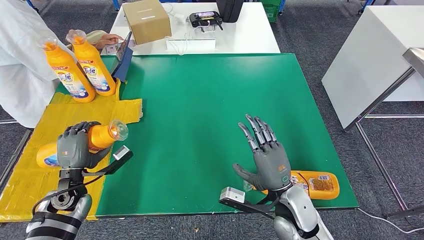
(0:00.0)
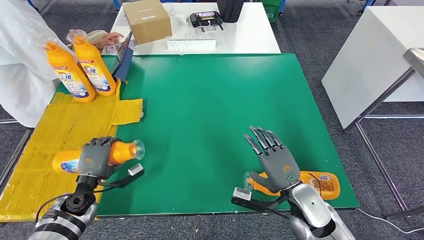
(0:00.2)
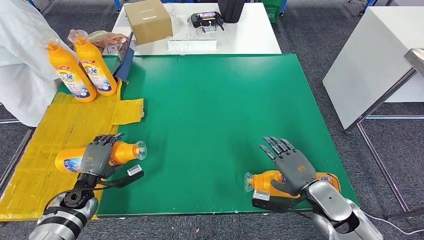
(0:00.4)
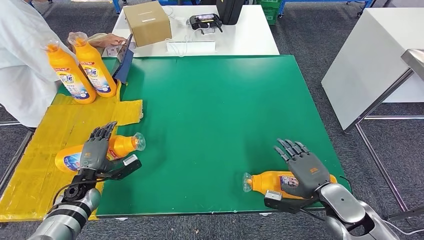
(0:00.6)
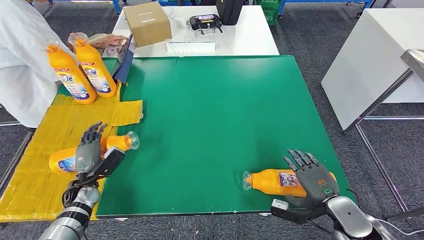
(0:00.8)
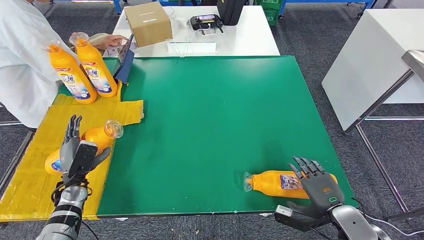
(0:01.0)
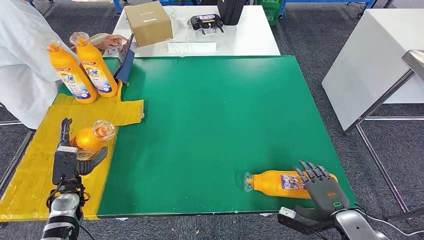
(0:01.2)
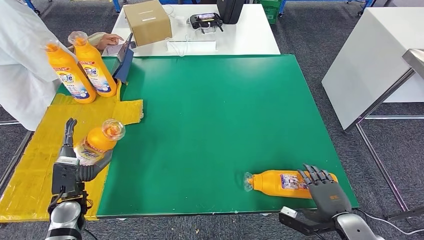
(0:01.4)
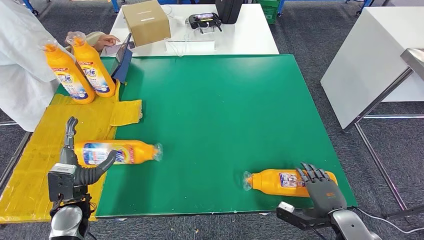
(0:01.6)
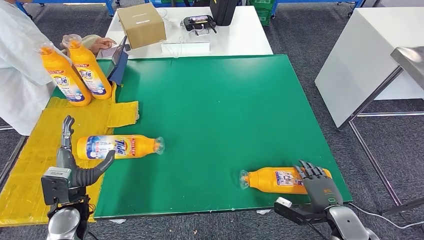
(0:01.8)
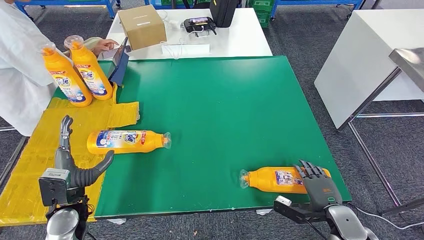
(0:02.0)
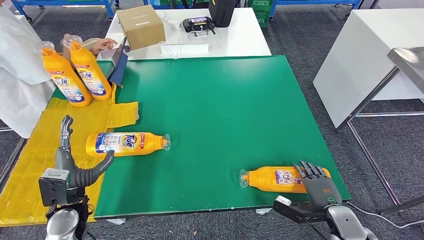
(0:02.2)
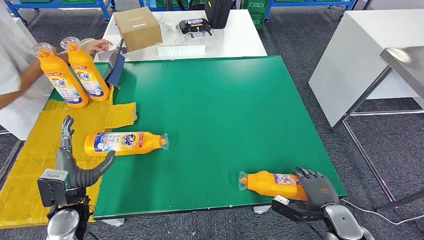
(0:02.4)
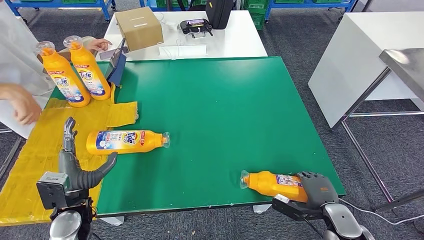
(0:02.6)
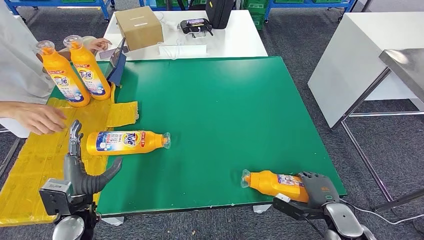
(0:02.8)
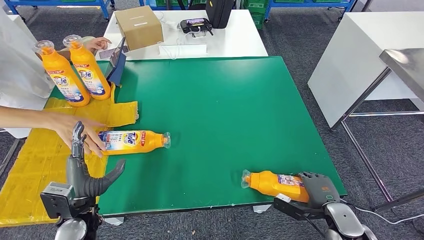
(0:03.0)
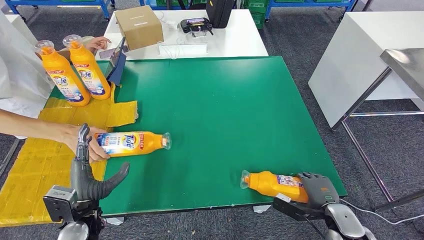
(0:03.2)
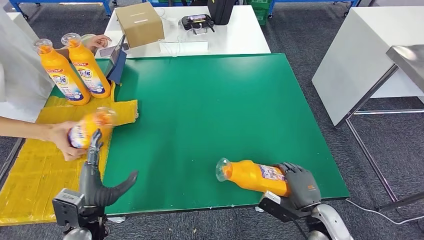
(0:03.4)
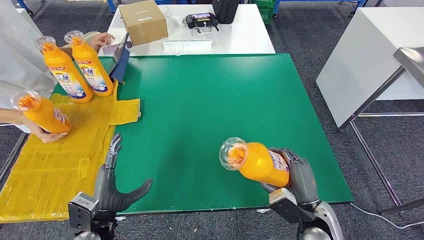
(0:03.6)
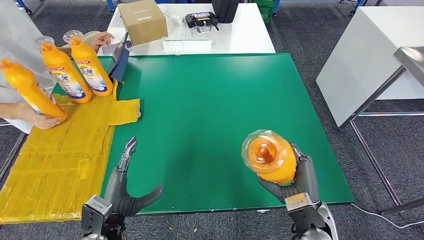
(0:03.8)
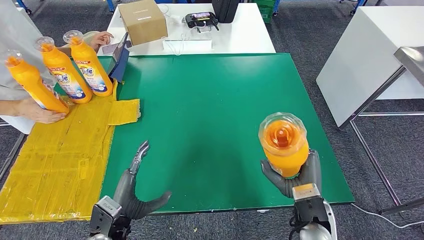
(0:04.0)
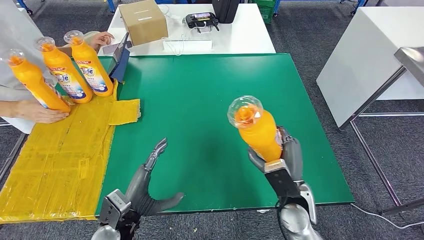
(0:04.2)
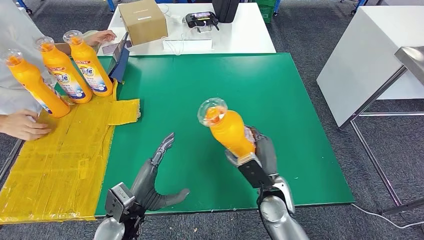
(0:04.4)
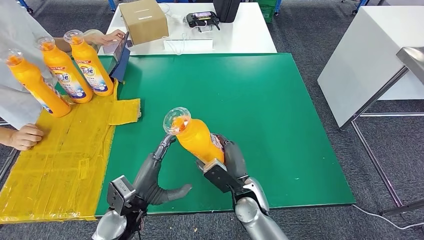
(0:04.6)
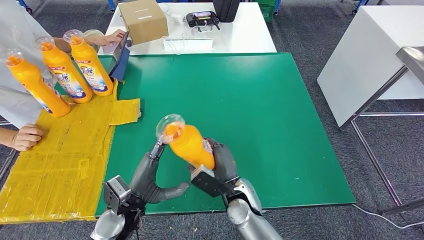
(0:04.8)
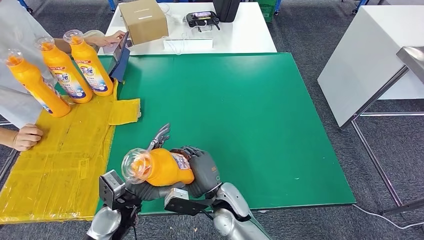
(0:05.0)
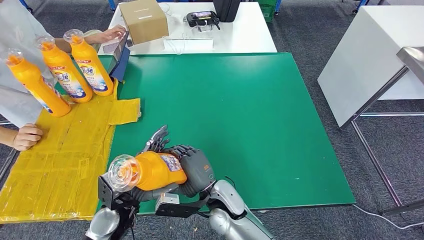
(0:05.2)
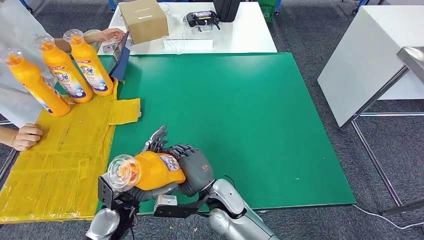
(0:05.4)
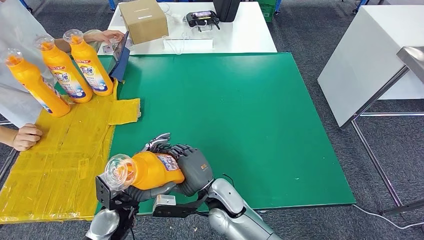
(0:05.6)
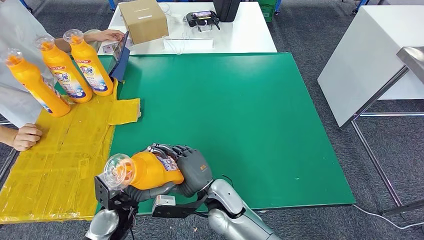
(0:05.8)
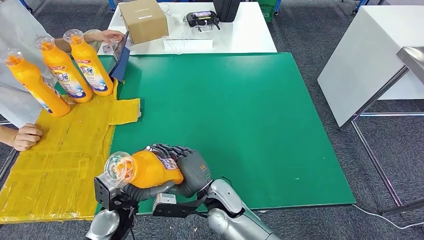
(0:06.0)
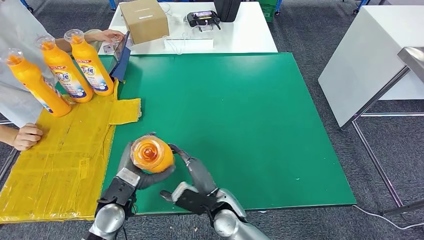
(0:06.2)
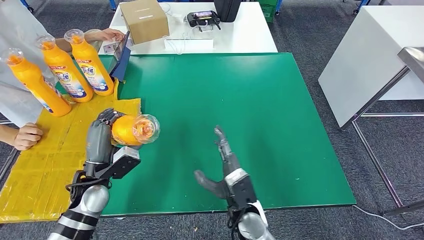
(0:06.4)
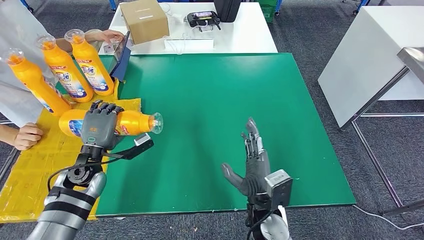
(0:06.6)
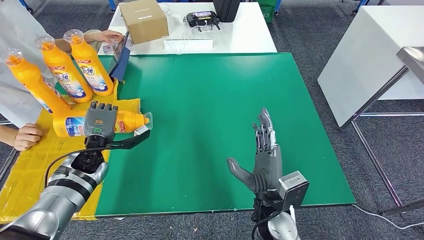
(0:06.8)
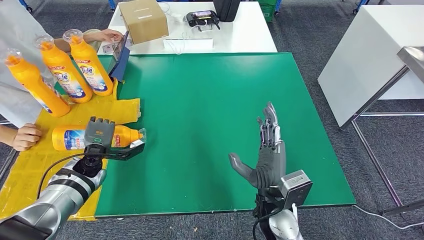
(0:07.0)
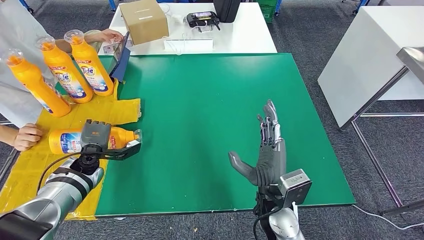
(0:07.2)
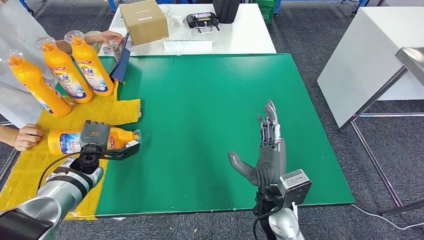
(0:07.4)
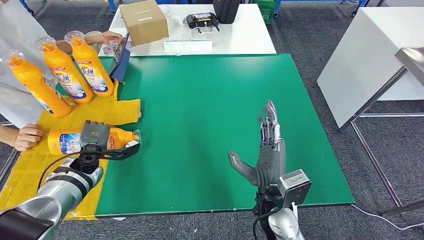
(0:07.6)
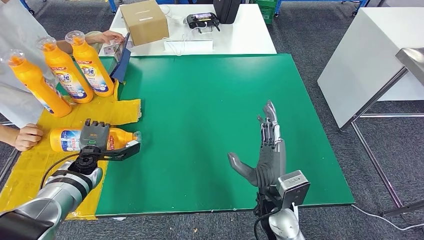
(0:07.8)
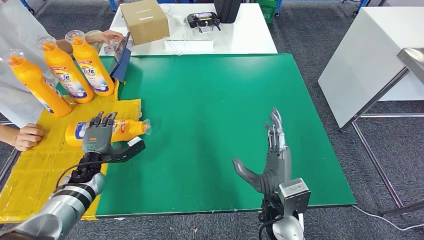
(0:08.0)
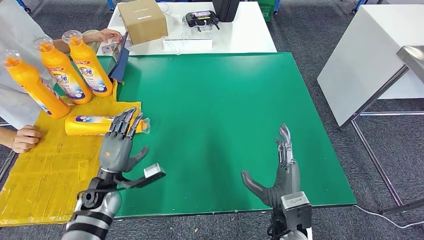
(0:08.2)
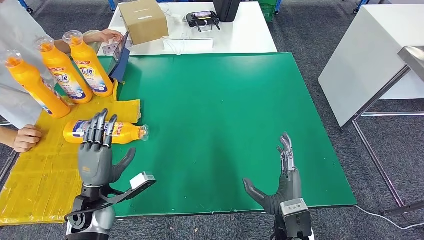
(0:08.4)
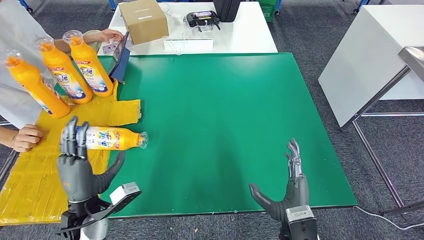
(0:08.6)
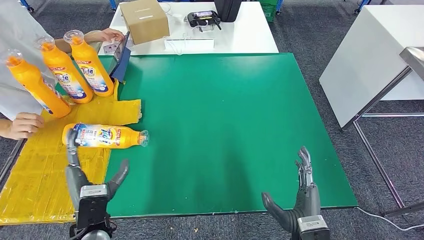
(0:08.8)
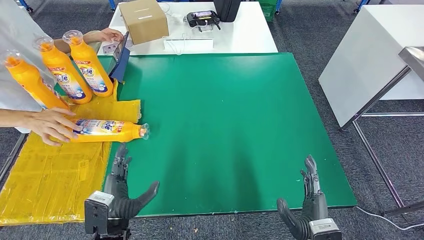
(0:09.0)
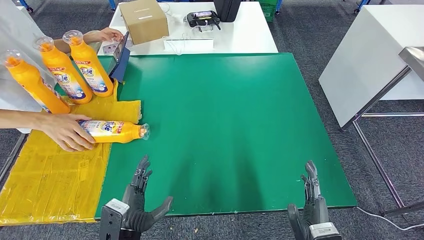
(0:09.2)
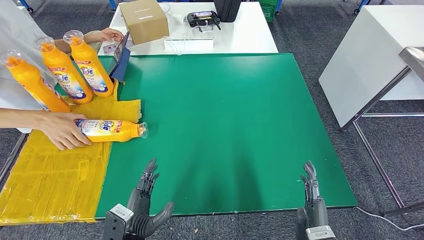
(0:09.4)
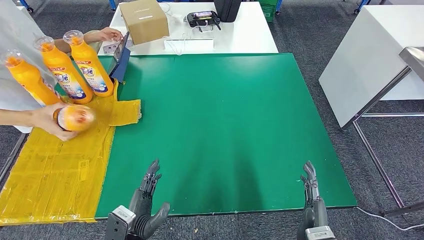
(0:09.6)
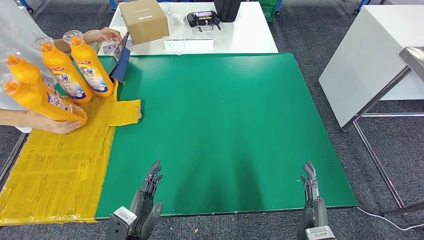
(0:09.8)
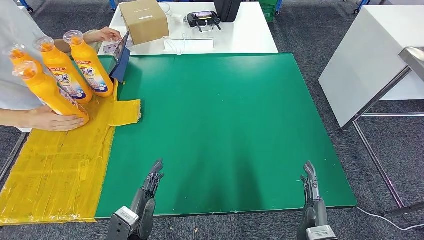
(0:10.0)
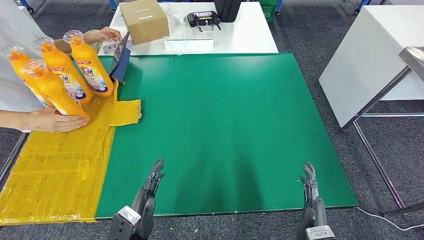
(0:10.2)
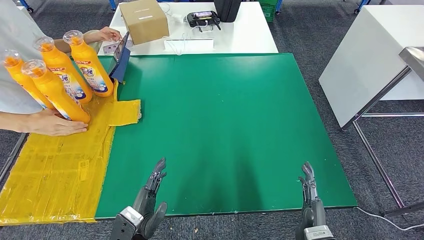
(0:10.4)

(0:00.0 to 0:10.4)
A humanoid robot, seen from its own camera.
Step, 0:00.0 - 0:01.8: Flip the fast-moving consumer goods bottle to the front side.
Step, 0:02.2 - 0:05.0: Pick up the fast-moving consumer goods bottle from the table.
Step, 0:05.2 - 0:10.4: Flip the fast-moving consumer goods bottle to the front side.
0:00.0 - 0:01.4: The left hand goes downward and returns, approximately 10 cm each way. The right hand heads to the right and downward, covering some 15 cm.
0:04.4 - 0:06.0: The right hand goes some 15 cm to the left.
0:09.0 - 0:10.4: There are only small adjustments of the hands.

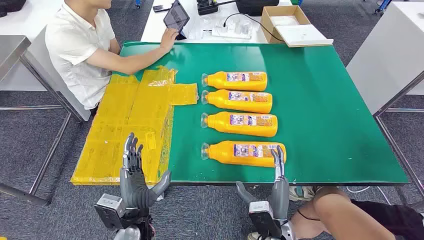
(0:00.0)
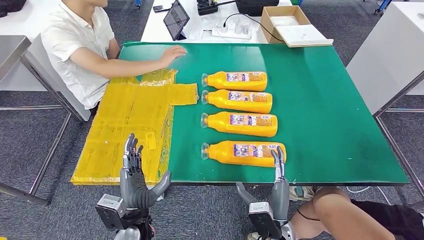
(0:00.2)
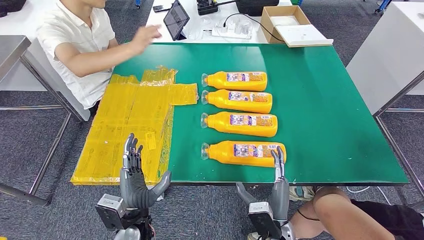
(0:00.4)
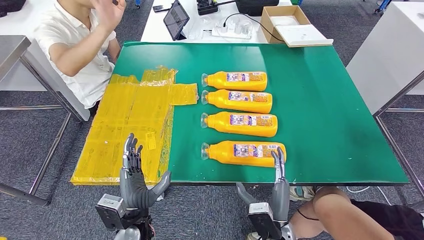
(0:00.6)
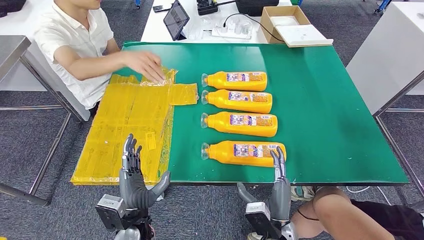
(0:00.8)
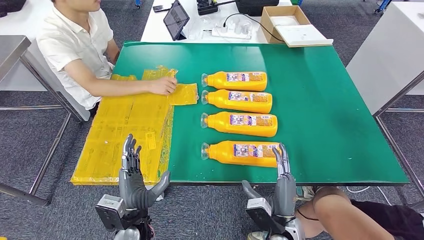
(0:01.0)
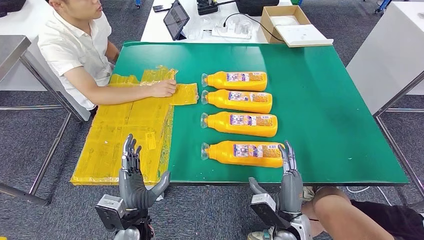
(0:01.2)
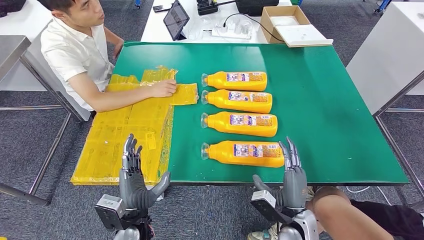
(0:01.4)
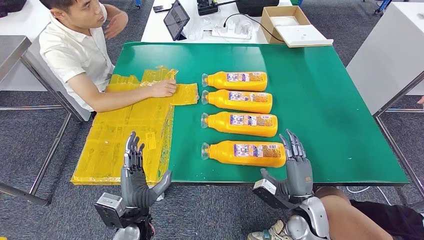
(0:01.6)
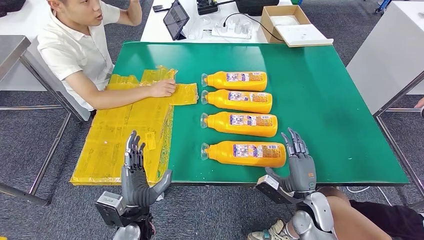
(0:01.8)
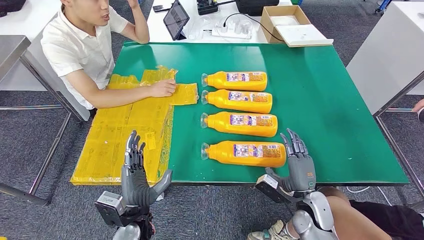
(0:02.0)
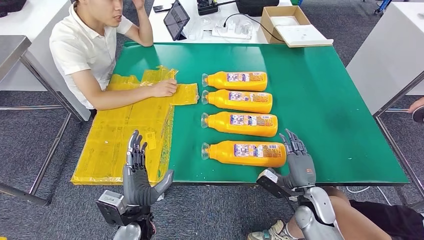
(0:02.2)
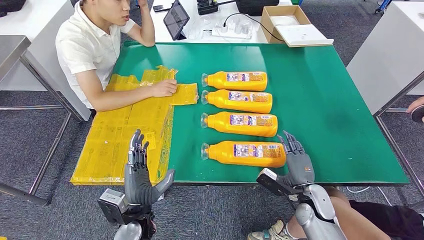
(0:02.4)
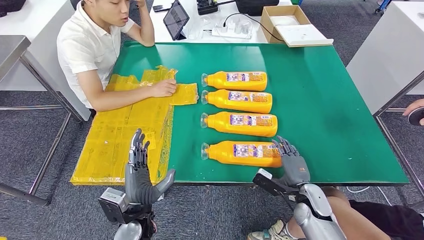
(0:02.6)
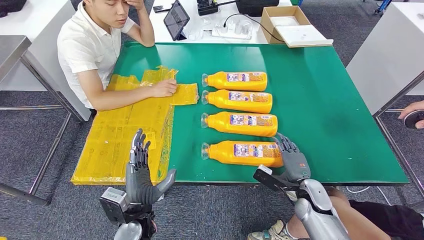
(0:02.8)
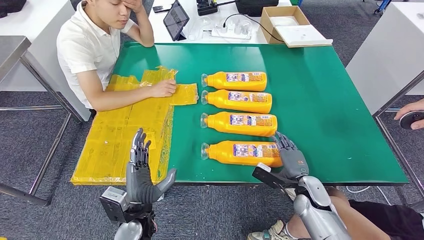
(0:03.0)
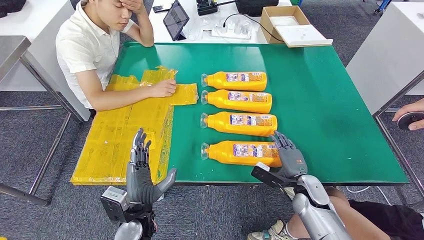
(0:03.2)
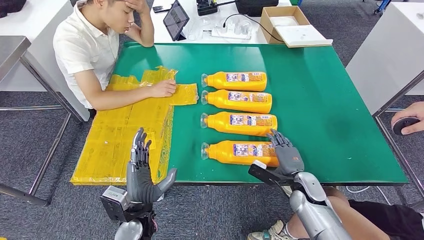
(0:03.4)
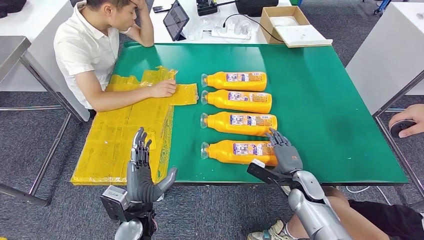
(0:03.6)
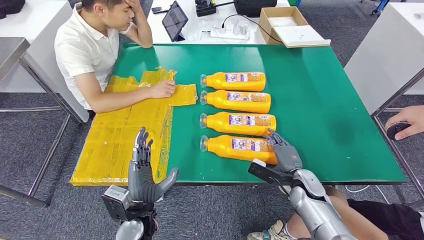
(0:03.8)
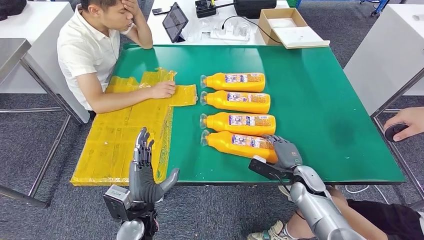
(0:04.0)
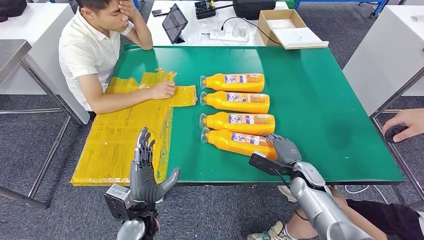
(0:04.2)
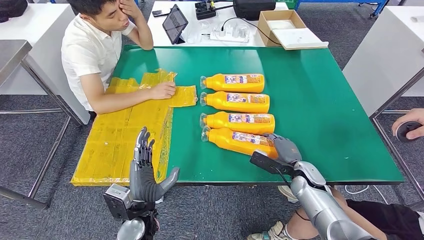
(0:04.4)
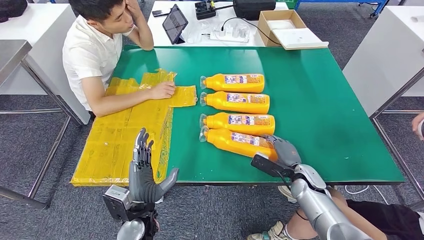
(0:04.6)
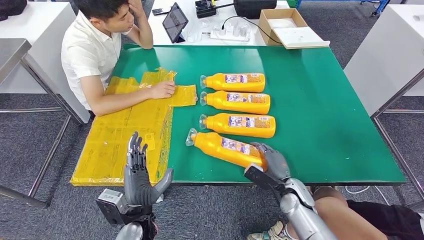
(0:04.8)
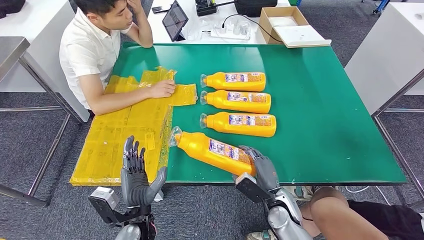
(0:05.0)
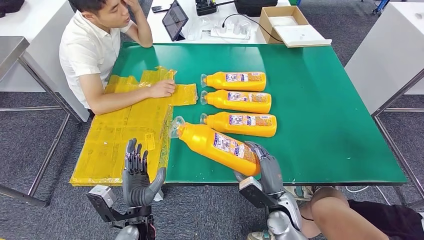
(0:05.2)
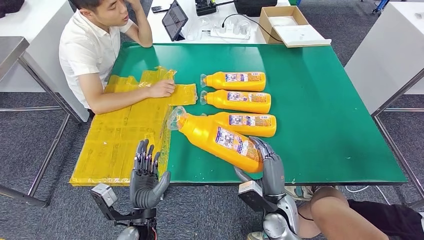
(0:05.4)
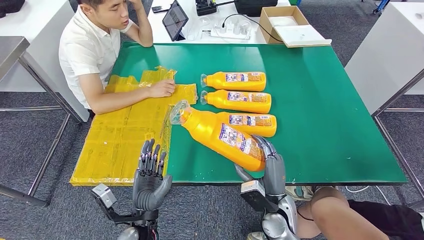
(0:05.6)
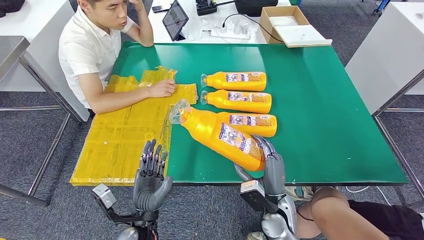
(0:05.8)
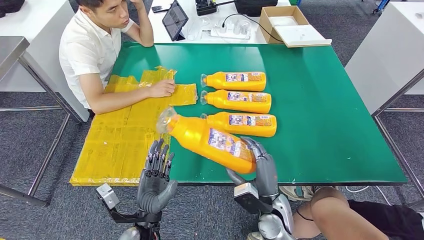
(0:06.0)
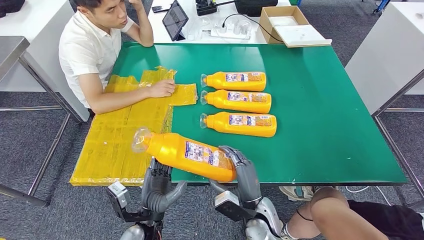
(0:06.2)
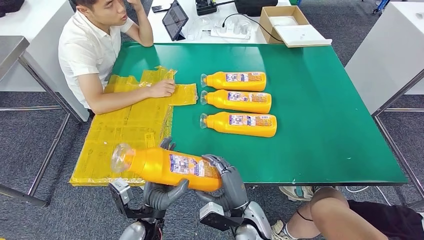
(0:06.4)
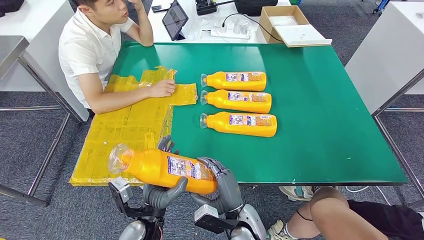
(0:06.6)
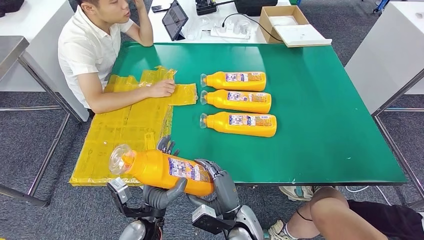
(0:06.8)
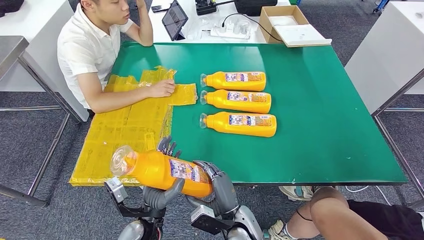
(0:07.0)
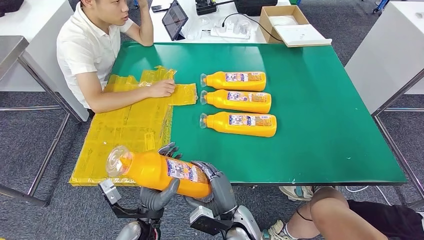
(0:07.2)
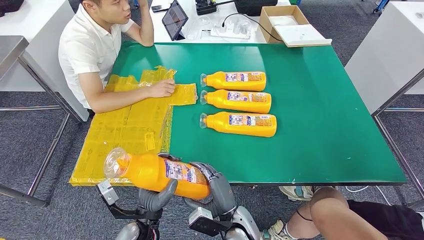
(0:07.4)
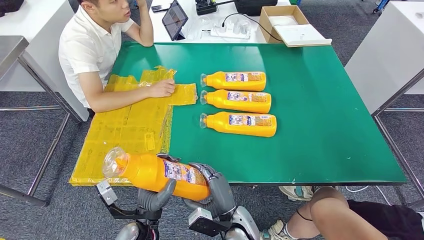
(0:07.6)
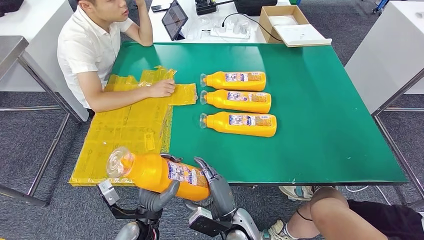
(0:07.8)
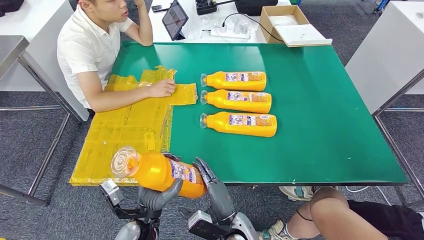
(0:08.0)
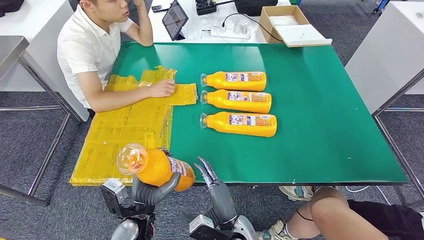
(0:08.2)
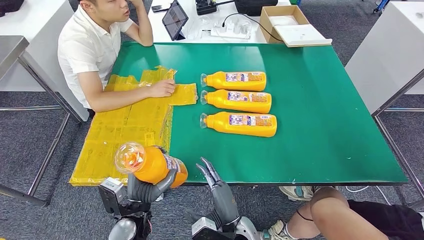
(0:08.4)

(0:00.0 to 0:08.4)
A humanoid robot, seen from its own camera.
Step, 0:00.0 - 0:05.0: Take the fast-moving consumer goods bottle from the table.
0:01.4 - 0:02.8: The right hand shifts approximately 10 cm forward and to the right.
0:05.6 - 0:07.0: The right hand travels to the left by some 10 cm.
